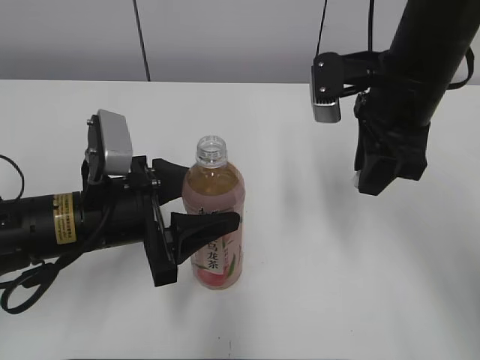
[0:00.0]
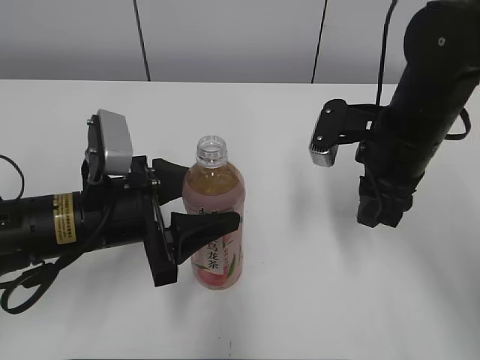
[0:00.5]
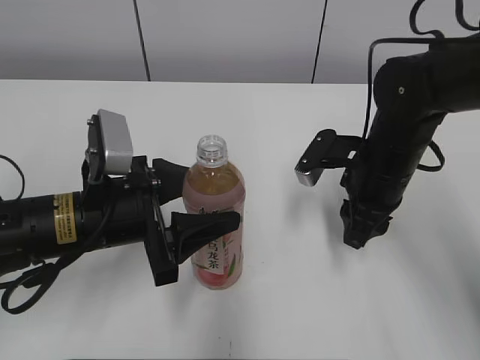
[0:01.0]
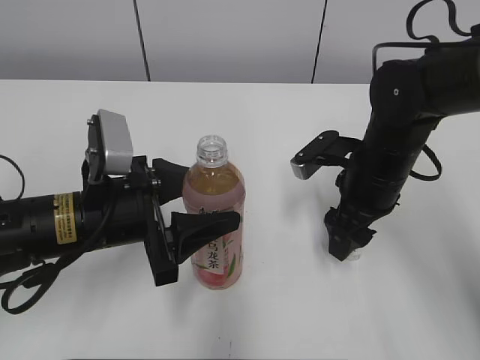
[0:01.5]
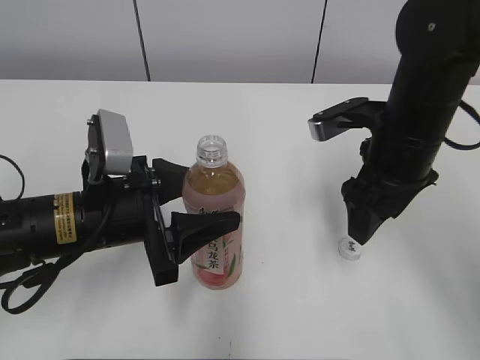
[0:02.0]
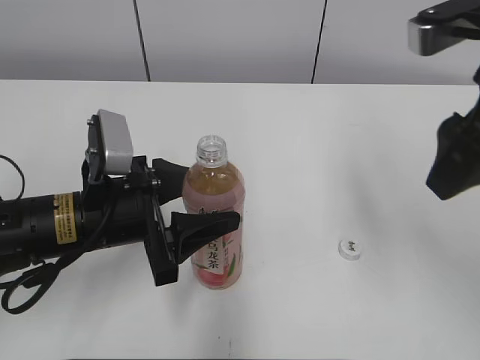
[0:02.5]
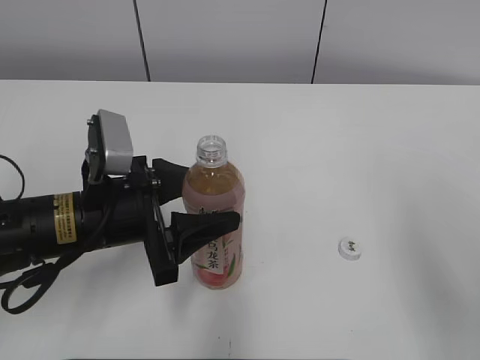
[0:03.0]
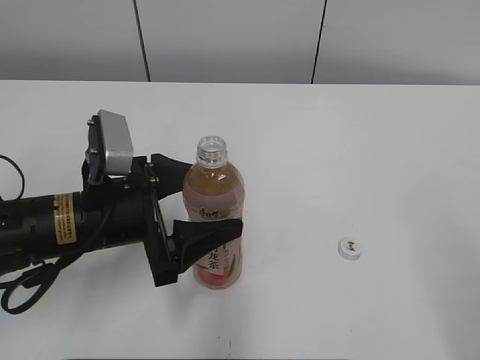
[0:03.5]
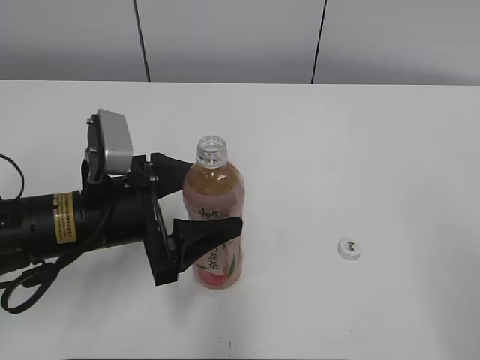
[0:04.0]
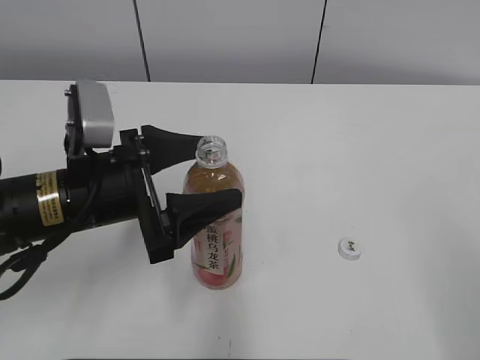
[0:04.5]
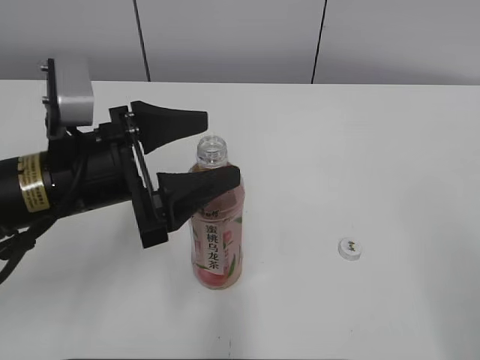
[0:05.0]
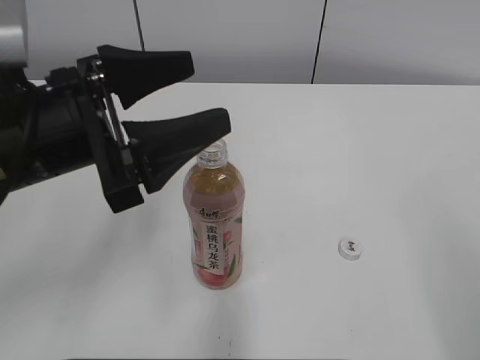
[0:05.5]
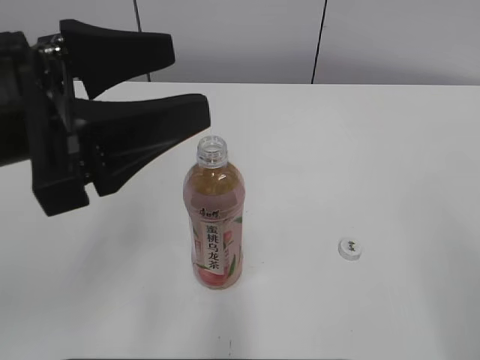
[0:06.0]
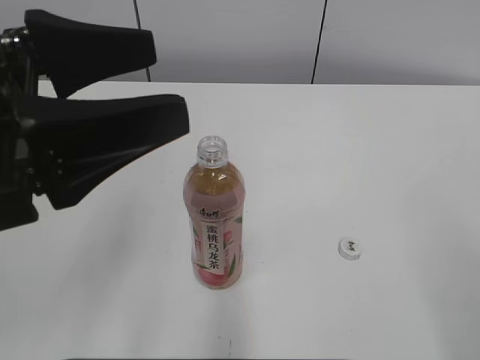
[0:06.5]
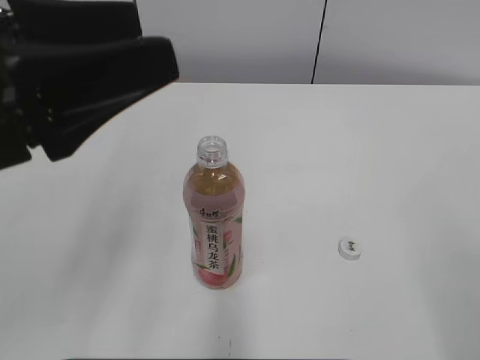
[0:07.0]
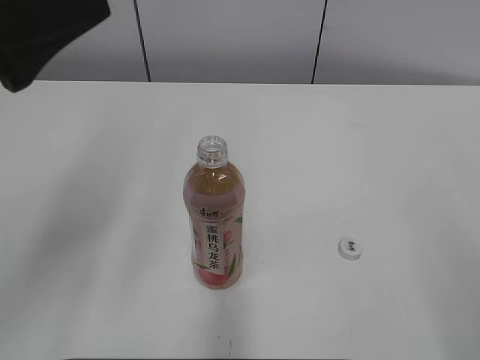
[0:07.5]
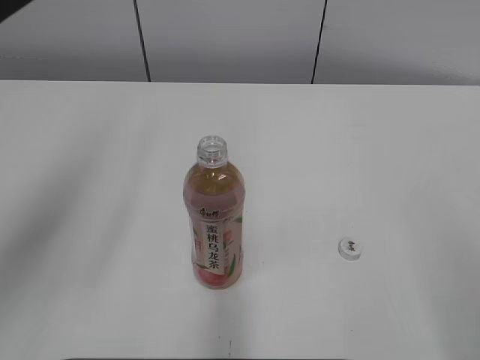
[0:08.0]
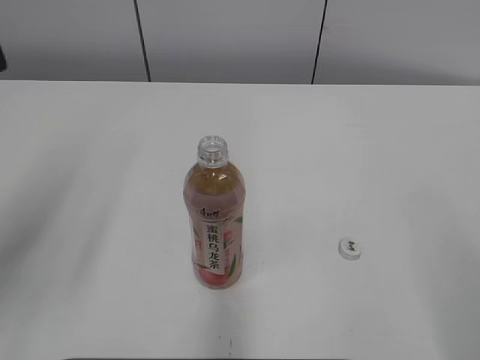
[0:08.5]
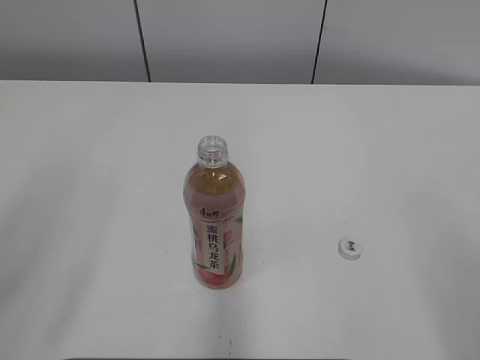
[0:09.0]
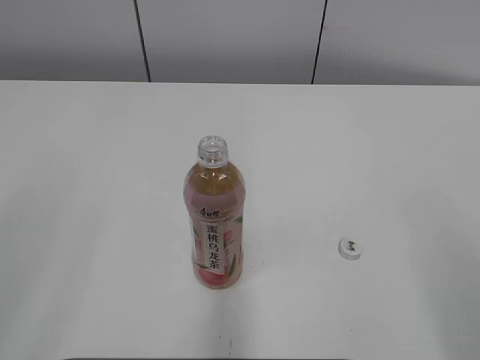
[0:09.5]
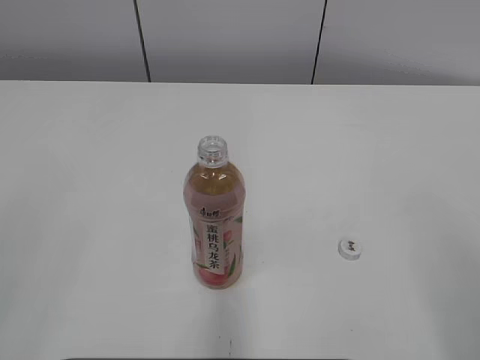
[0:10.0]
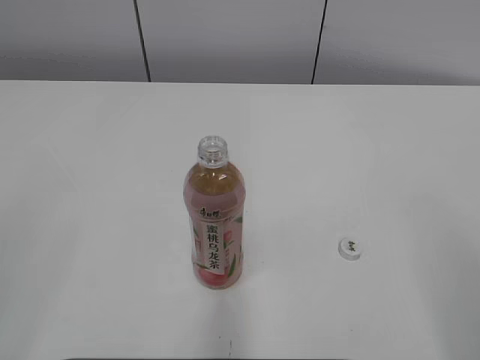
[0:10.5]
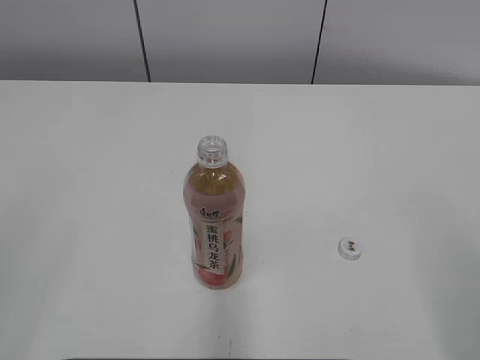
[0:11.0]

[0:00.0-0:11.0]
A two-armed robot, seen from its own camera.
0:00.0 to 0:02.0: The right gripper travels downward by some 5 cm, and opens up.
0:02.0 to 0:03.5: The right gripper goes roughly 30 cm backward and to the right.
0:03.5 to 0:05.5: The left gripper is displaced upward by some 10 cm.
0:05.5 to 0:07.5: The left gripper shifts roughly 10 cm upward and to the left.
0:07.5 to 0:09.0: The left gripper is displaced backward and to the left by about 10 cm.

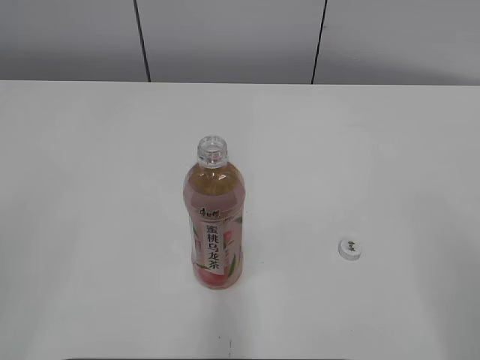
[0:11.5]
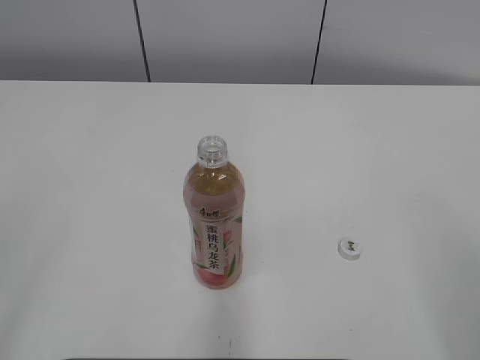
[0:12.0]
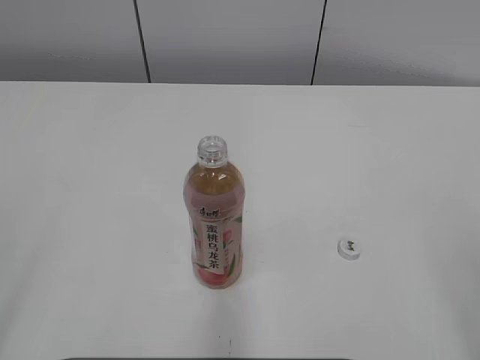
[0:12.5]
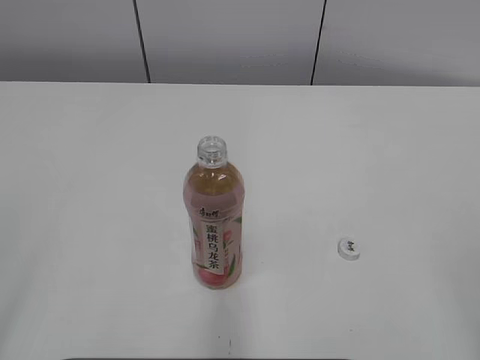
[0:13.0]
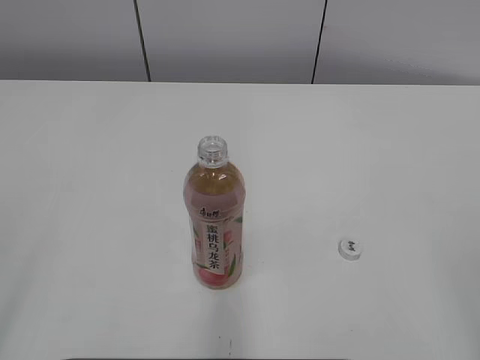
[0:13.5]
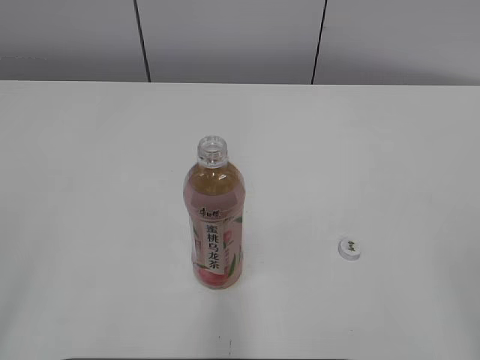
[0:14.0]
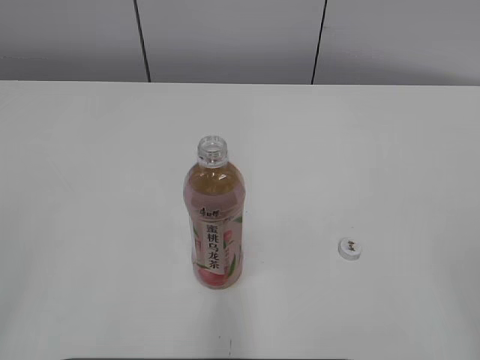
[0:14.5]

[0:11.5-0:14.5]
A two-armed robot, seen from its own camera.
0:13.0 to 0:14.5: Both grippers stay about where they are.

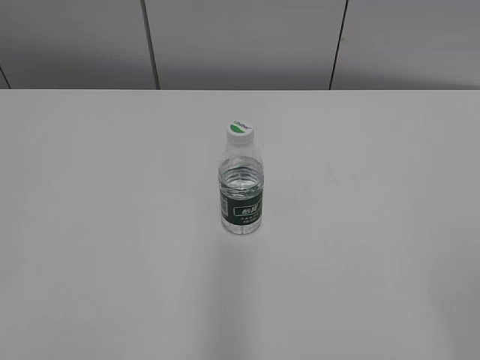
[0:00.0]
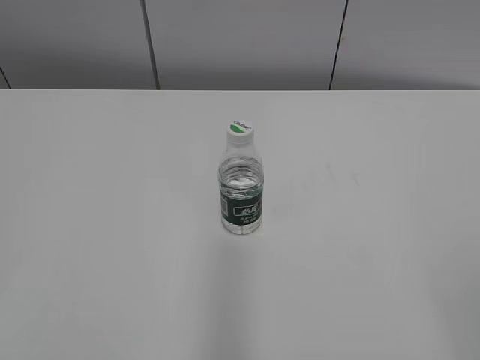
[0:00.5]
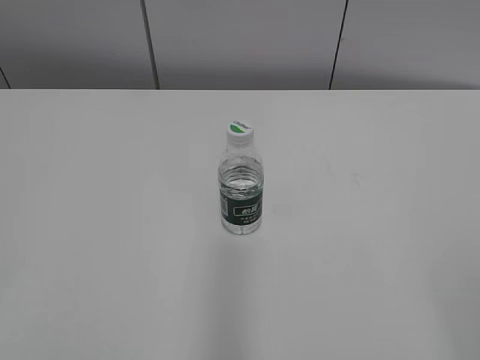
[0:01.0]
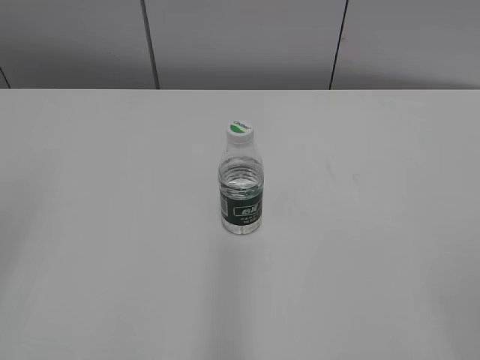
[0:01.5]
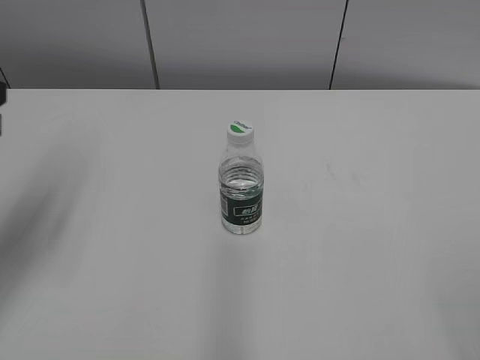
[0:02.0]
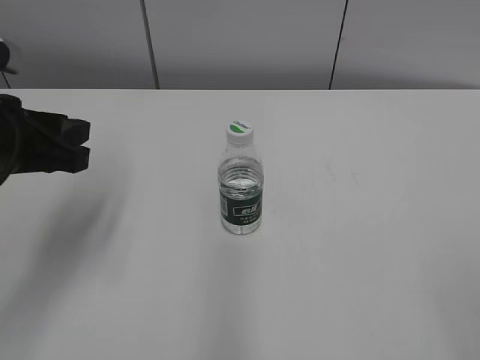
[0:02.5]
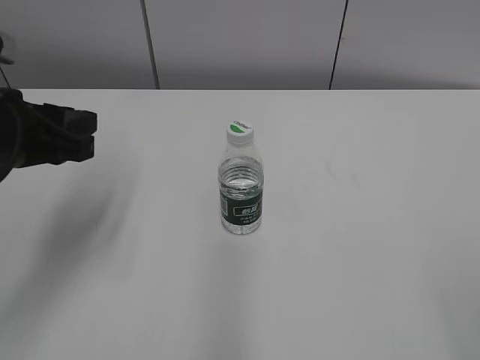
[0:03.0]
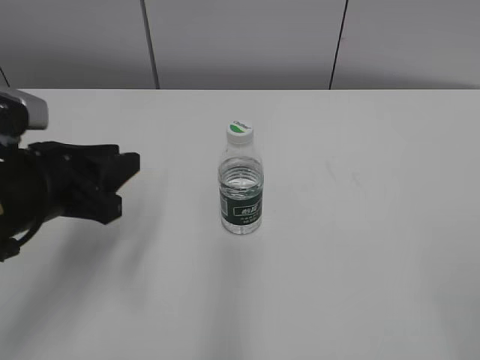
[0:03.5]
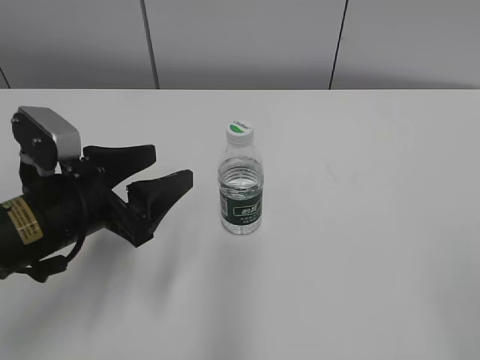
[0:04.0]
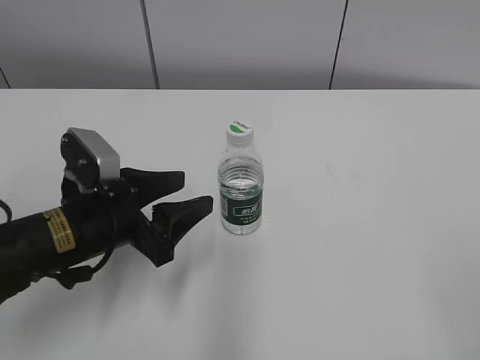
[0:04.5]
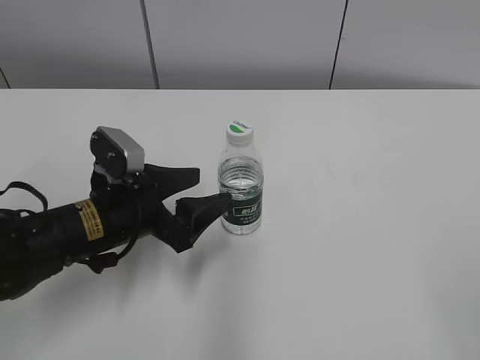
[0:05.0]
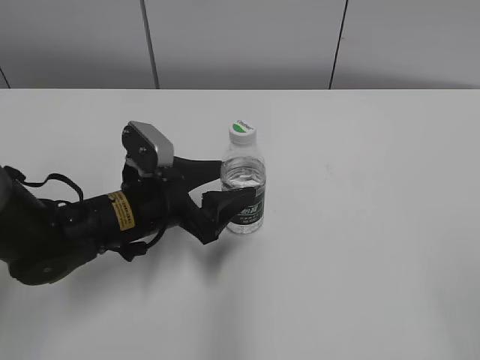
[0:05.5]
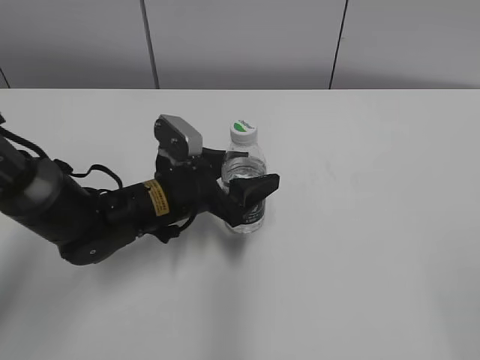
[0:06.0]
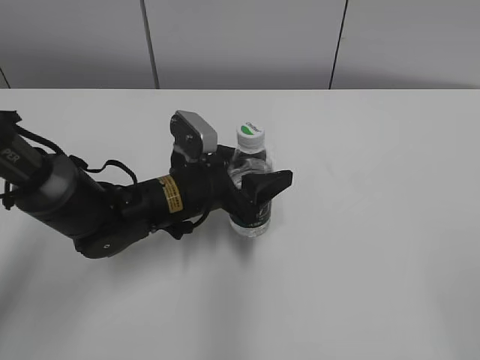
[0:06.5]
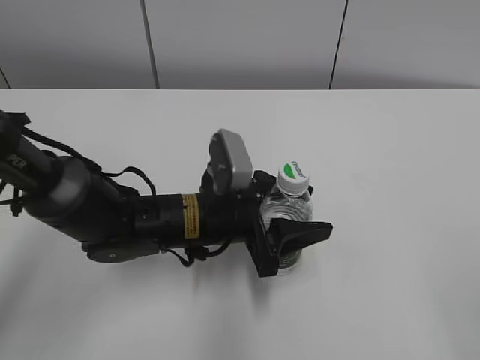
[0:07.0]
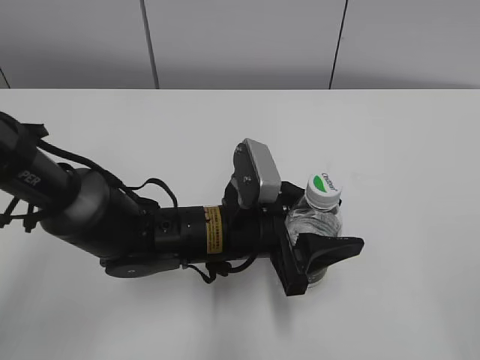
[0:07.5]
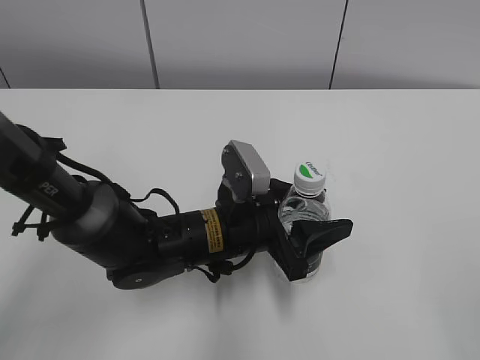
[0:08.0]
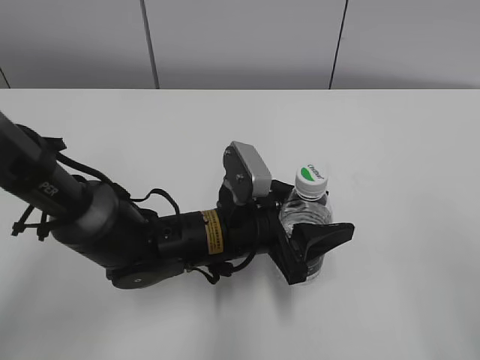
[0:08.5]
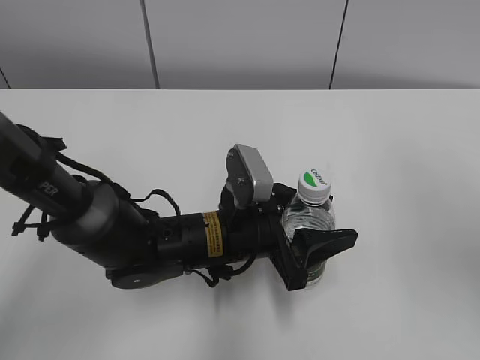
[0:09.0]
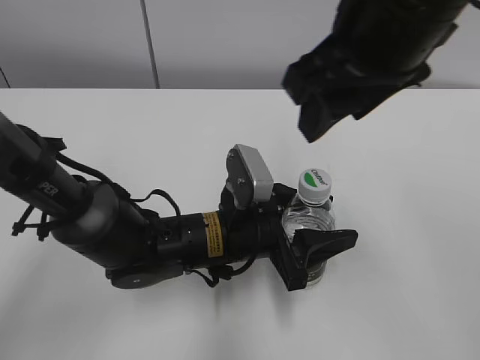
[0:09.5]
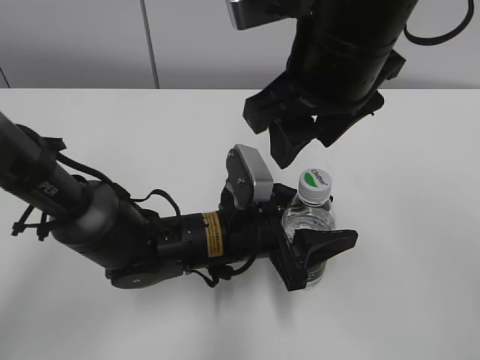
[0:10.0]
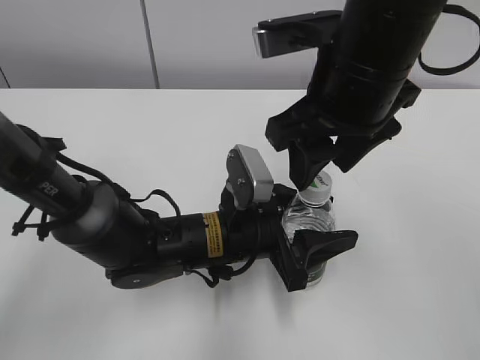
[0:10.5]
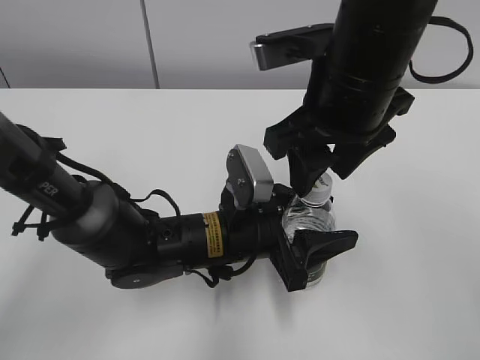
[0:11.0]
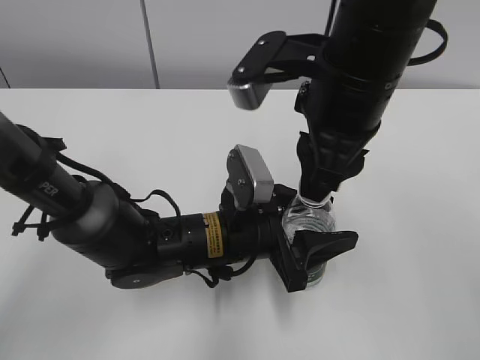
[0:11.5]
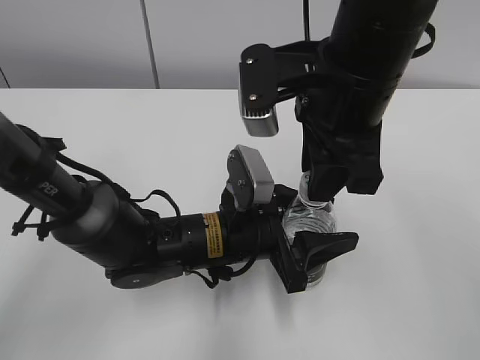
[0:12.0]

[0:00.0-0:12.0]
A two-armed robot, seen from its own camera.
Step, 0:00.0 to 0:06.0: Grab the C'estbon with the left hand.
Step, 0:06.5 to 0:08.0: Move the C'estbon to the right with the left hand.
0:02.0 to 0:04.0: The left gripper moves downward and to the right, about 15 cm, and opens its fingers.
0:04.0 to 0:06.0: The left gripper is displaced to the right, forward and downward by some 15 cm.
0:06.0 to 0:08.0: The left gripper travels to the right by roughly 5 cm.
0:08.0 to 0:10.0: The right gripper travels forward and to the left by roughly 35 cm.
0:10.0 to 0:12.0: The right gripper closes up.
